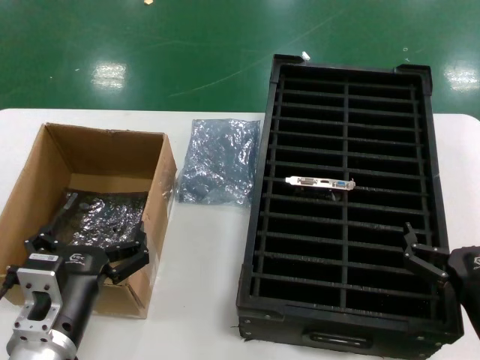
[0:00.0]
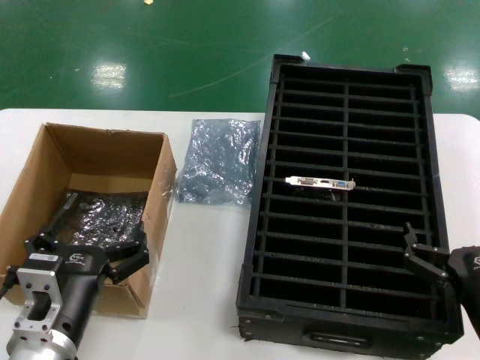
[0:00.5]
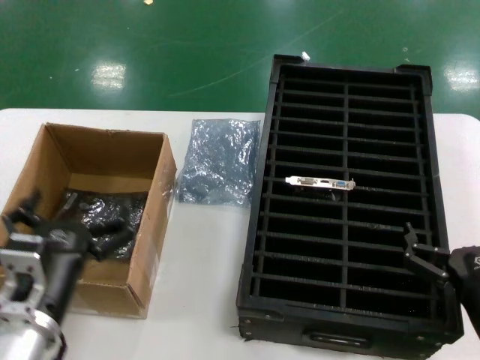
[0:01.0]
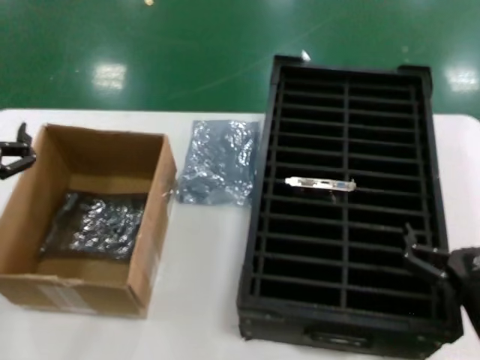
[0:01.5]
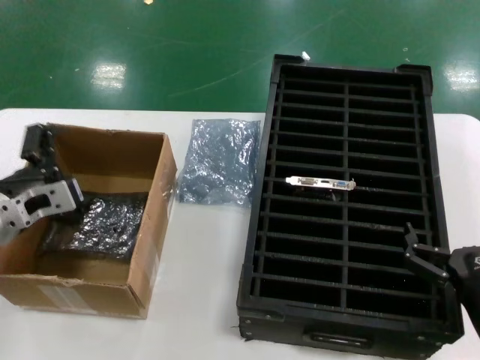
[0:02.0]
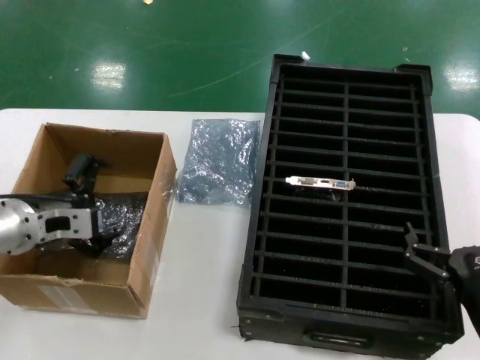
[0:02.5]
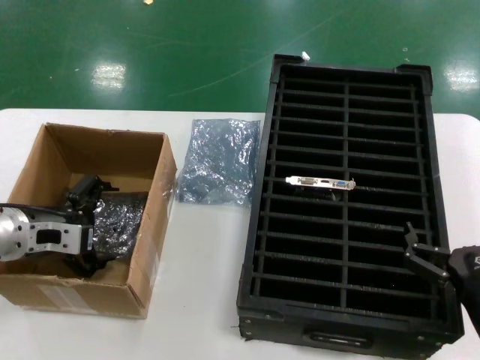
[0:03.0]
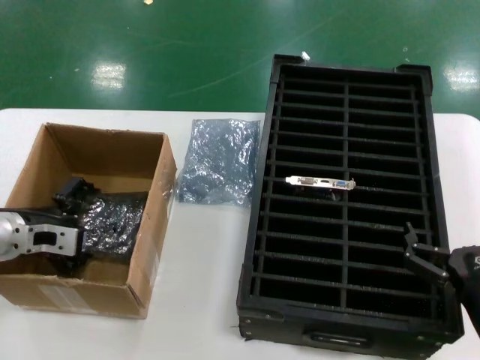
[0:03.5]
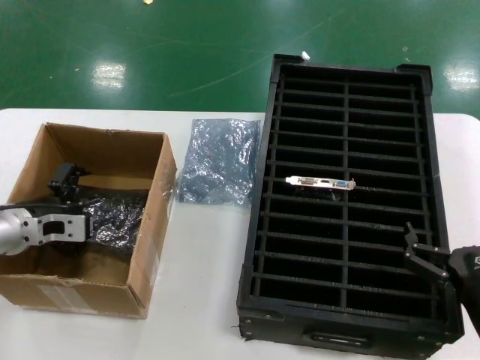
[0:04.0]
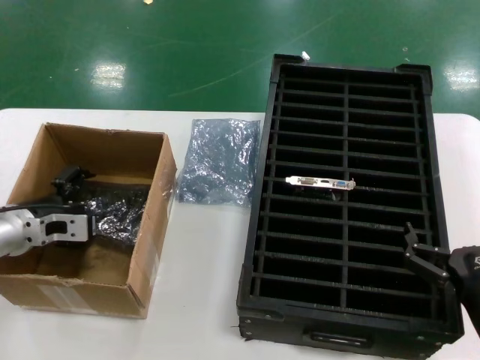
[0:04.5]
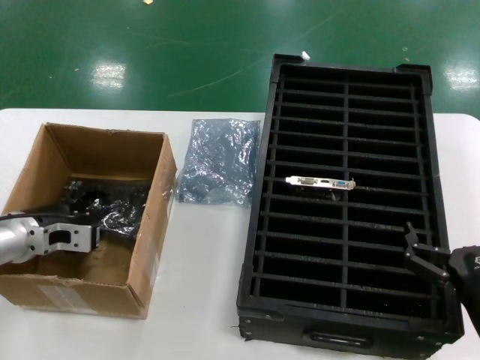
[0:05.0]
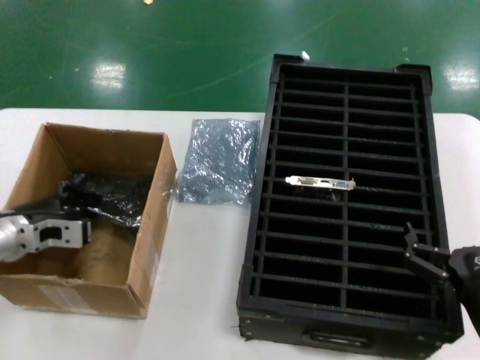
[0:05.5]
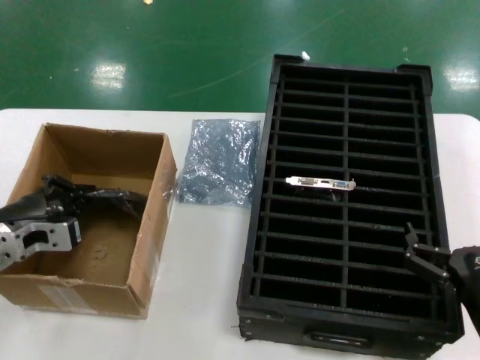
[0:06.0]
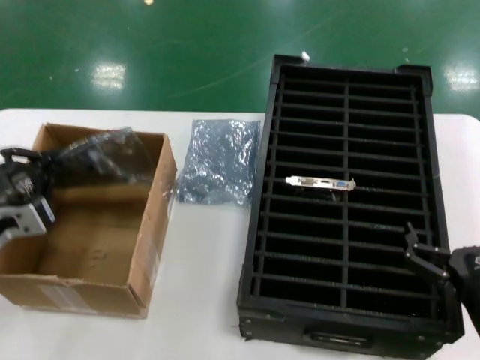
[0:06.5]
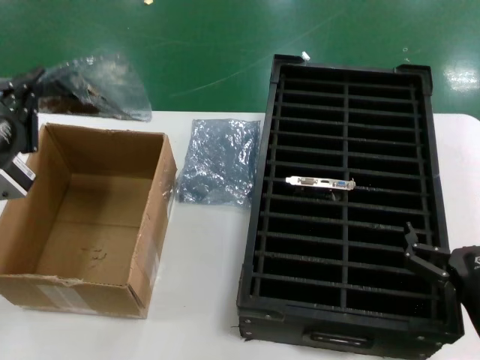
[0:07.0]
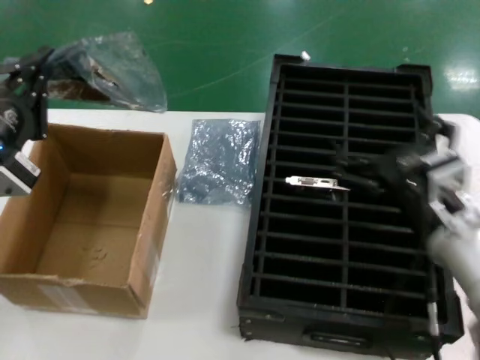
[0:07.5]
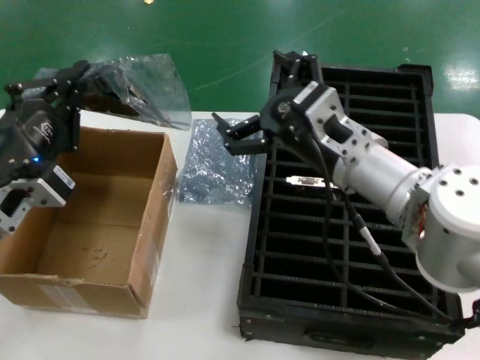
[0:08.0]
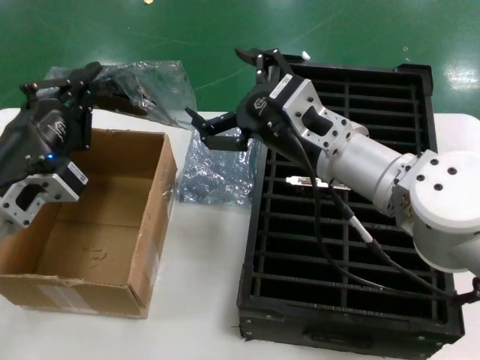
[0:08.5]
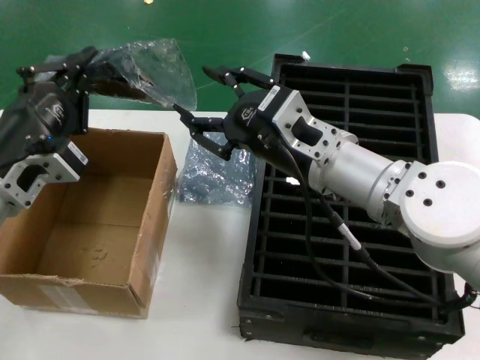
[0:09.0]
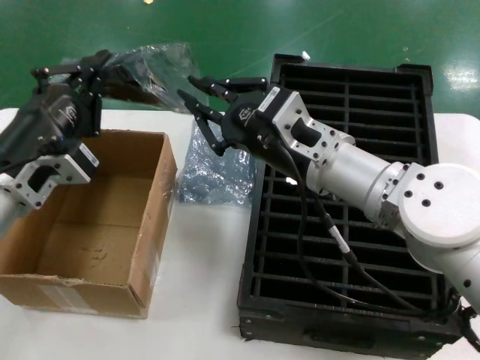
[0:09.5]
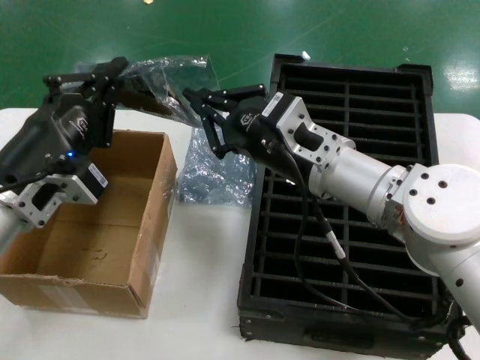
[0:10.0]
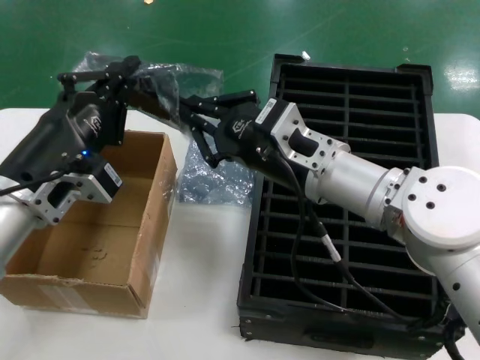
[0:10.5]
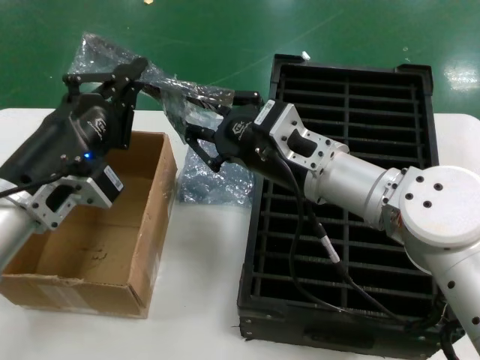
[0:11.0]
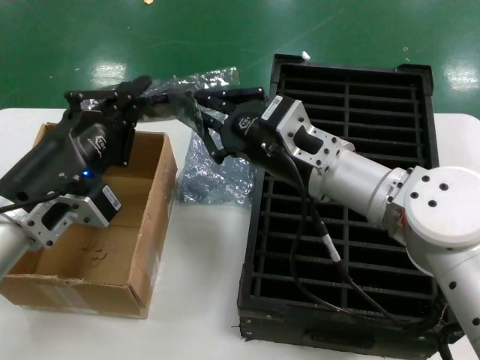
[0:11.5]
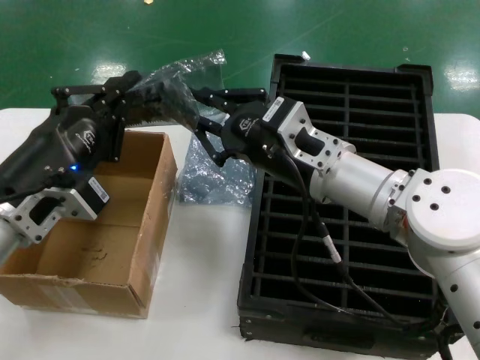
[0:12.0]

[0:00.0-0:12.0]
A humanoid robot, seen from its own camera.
Task of the whole recording: take out graphics card from box remove packaging put into black container.
Step, 0:00.0 to 0:05.0: Grasp the bag.
Step, 0:05.5 to 0:07.0: Lift the bag.
0:00.0 to 0:02.0: The left hand moves forward, to the left and upward, about 20 cm.
0:02.0 to 0:04.0: The left hand moves forward, some 5 cm.
0:04.0 to 0:06.0: The left hand is displaced backward by some 5 cm.
0:06.0 to 0:08.0: The right hand heads forward, upward and to the left, covering approximately 25 cm. The left hand shifts roughly 10 cm backward, upward and to the right.
0:10.0 to 0:12.0: The hands make only small movements.

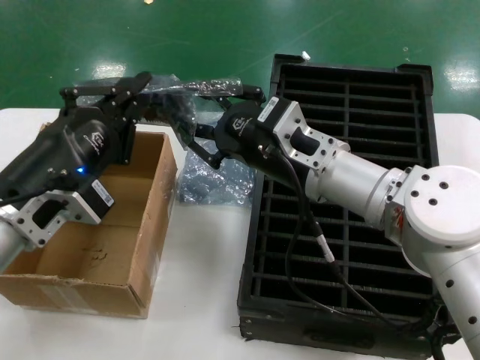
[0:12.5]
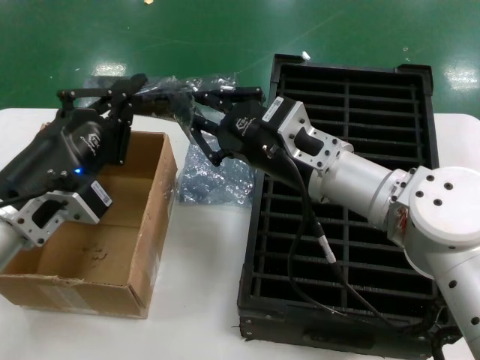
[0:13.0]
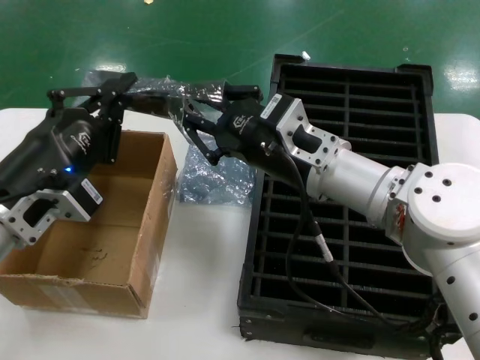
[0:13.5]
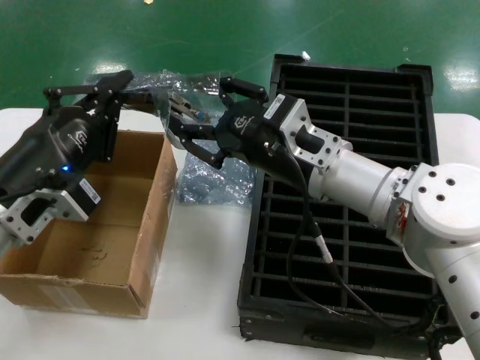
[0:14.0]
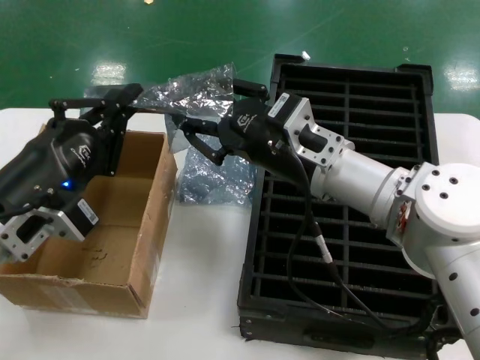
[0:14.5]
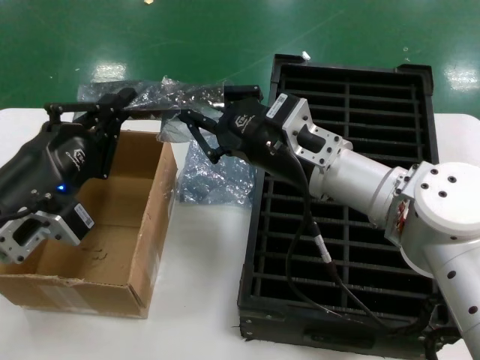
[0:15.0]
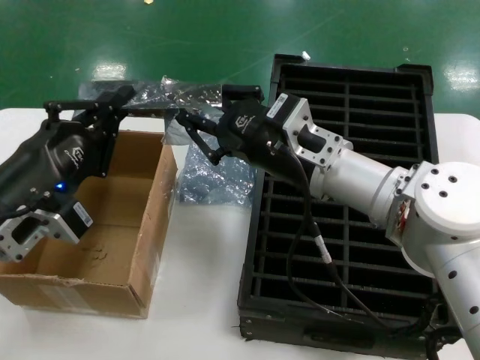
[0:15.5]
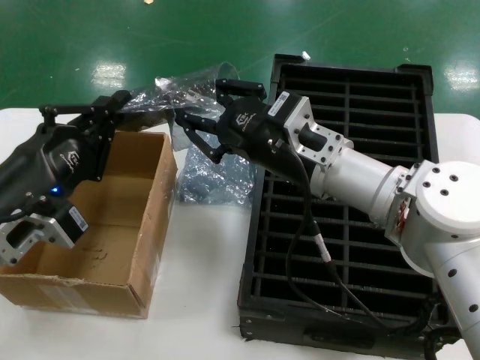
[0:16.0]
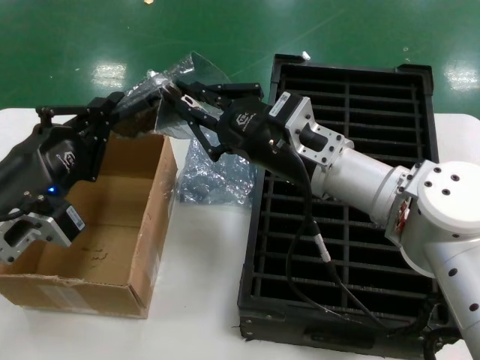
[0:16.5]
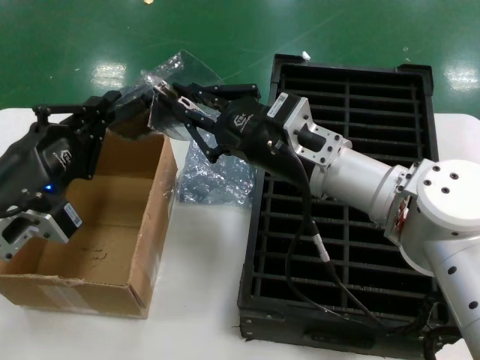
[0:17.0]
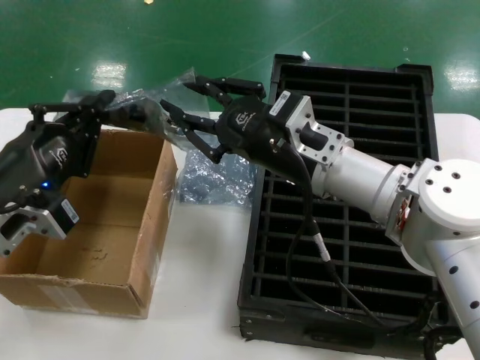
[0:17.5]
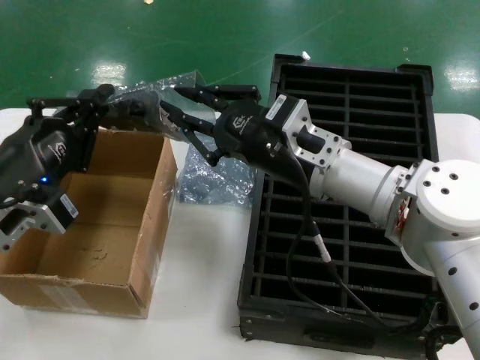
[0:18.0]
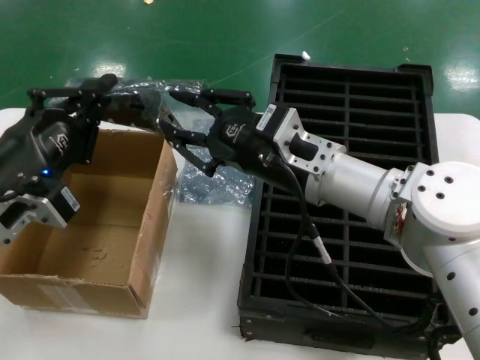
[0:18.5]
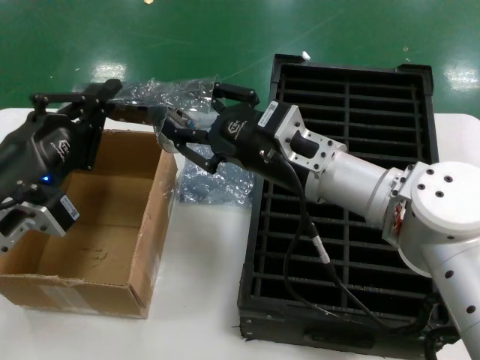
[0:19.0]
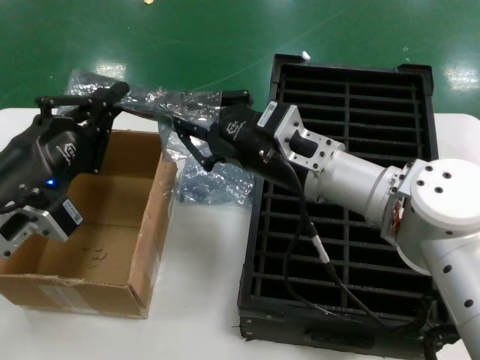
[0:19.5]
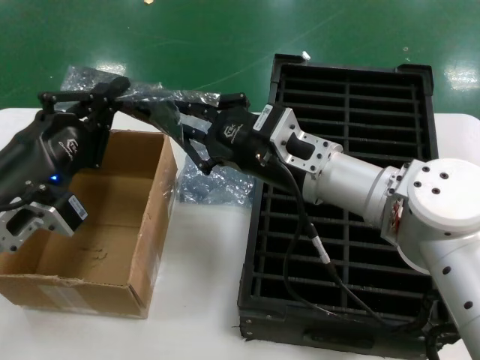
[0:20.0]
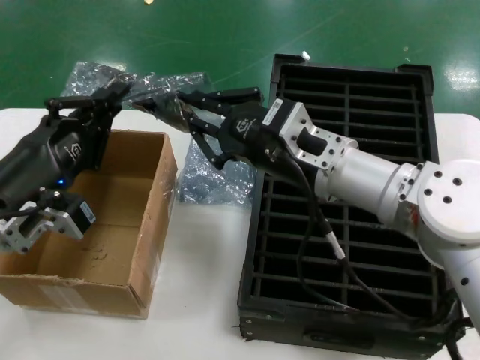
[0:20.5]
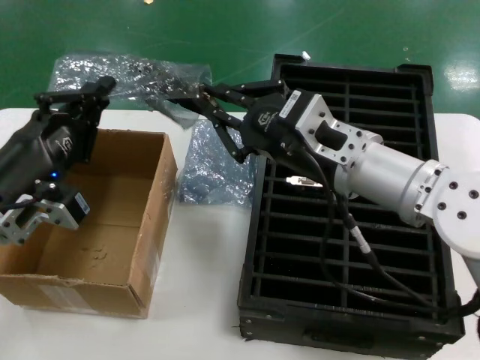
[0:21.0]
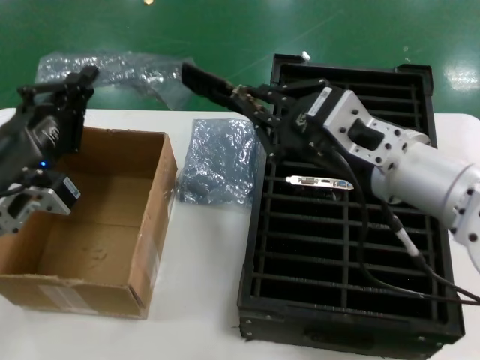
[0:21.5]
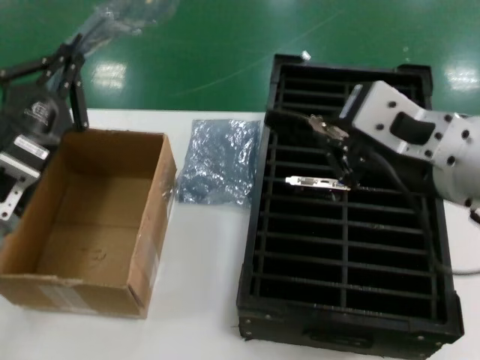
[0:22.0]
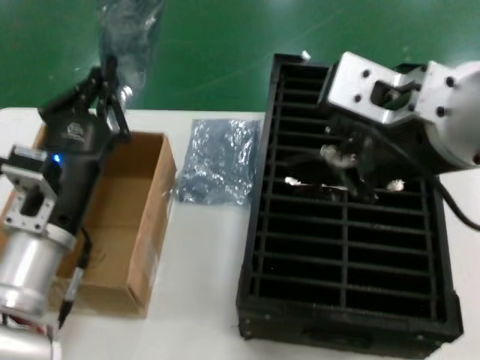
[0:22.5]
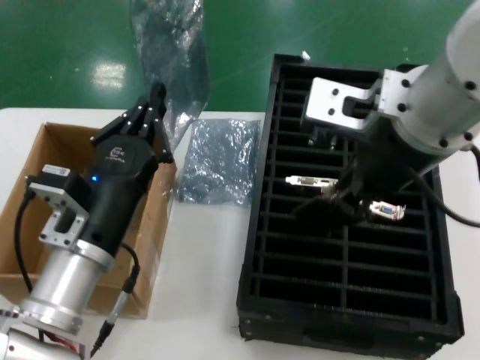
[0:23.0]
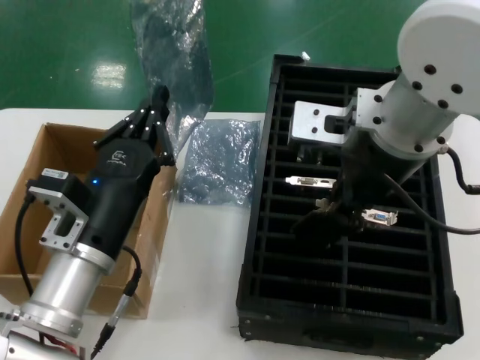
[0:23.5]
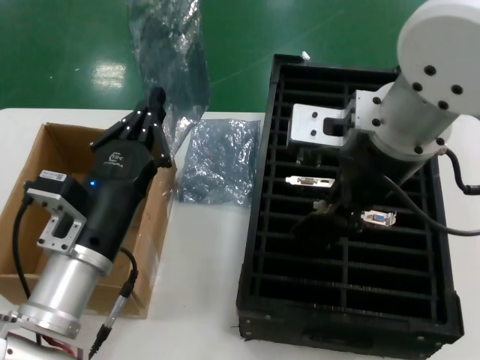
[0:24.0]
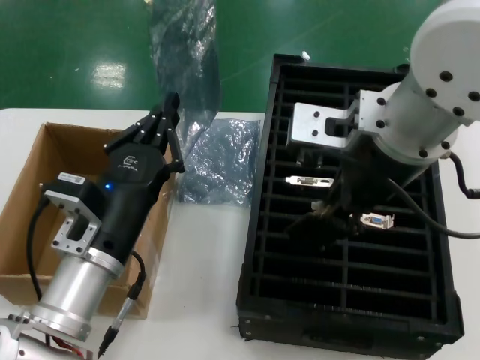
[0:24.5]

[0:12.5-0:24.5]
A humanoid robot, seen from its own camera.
Task of the whole recording: take out graphics card from box remove packaging put into black container.
Step, 0:12.5 to 0:21.5: Take out the hard disk of the bag.
0:12.5 to 0:20.5: The hands stay close to where they were, moving slightly.
0:20.5 to 0:22.5: The left hand goes some 5 cm to the right; the right hand moves upward and backward, about 25 cm.
0:22.5 to 0:24.5: The left hand changes place by some 5 cm. Meanwhile the right hand moves forward, roughly 10 cm.

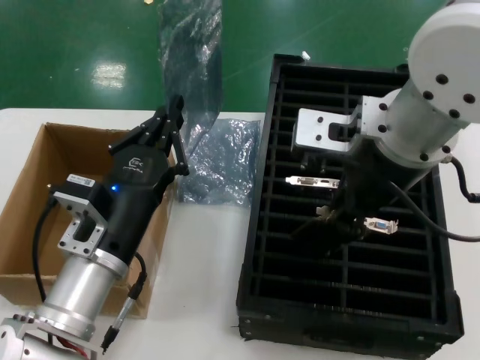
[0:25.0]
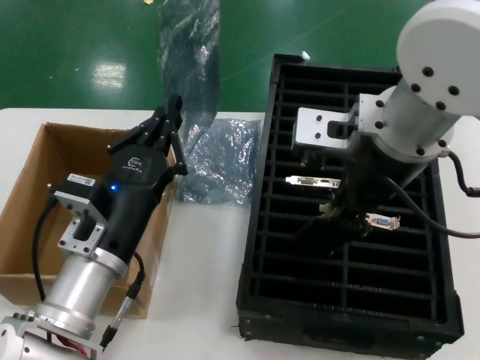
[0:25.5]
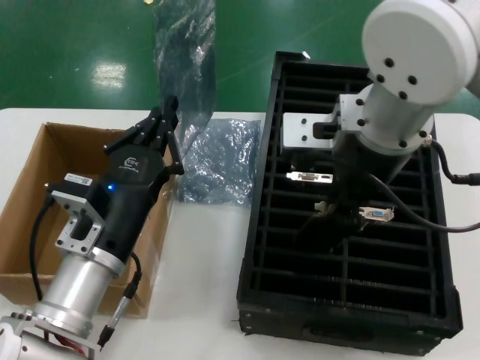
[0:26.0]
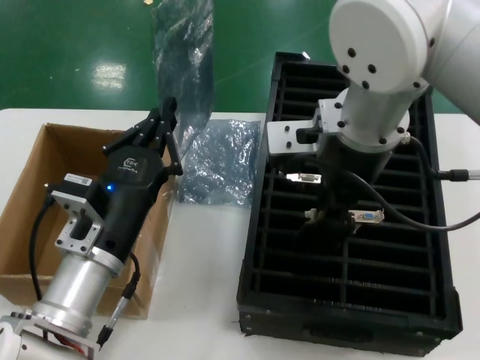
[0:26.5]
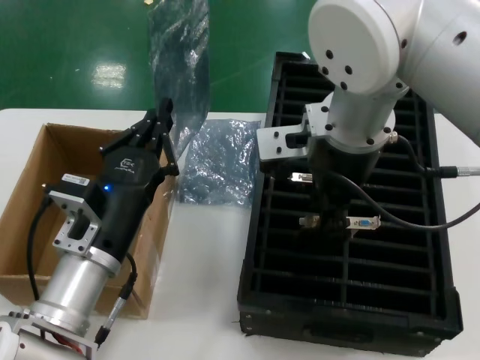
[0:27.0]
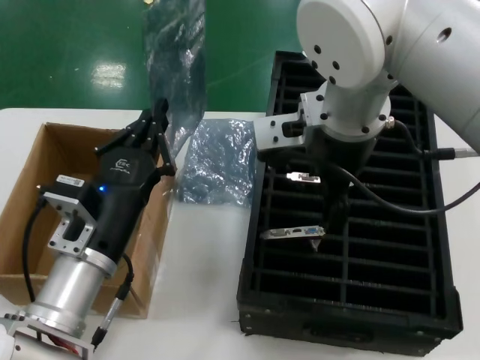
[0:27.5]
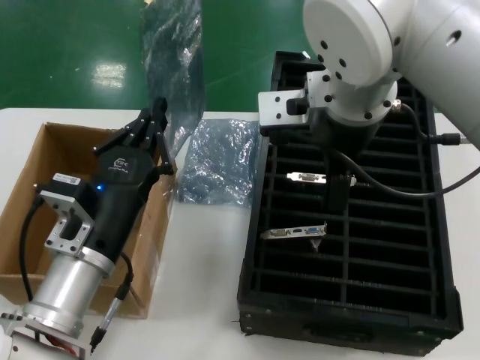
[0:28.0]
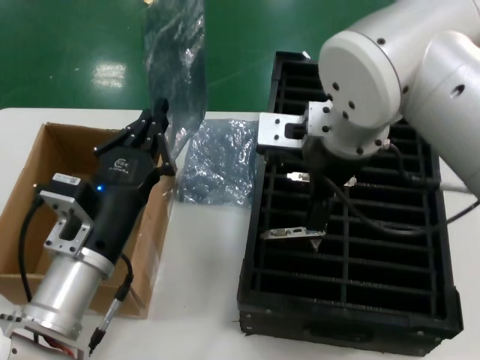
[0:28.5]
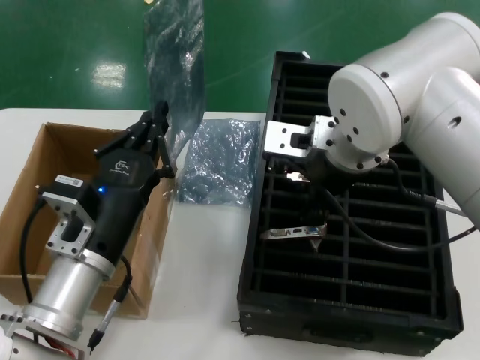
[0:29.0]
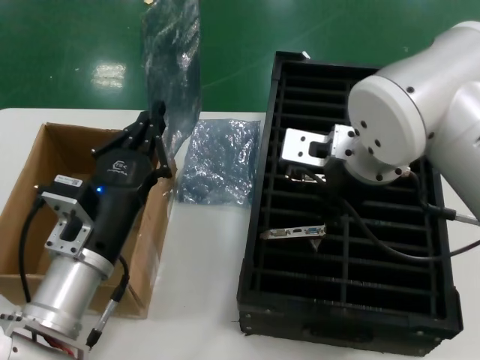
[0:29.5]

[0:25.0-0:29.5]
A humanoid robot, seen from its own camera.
Task of the whole recording: take out graphics card from box remove packaging put into black container.
0:25.0 to 0:27.0: The right hand travels forward by about 5 cm.
0:27.0 to 0:29.5: The right hand travels downward by about 5 cm.
